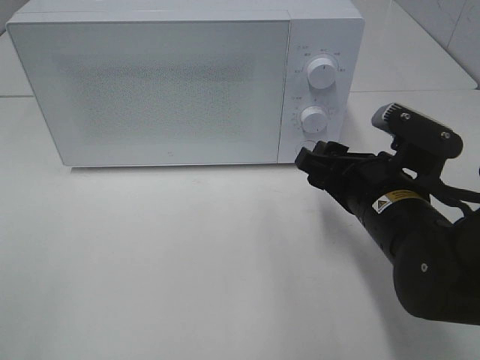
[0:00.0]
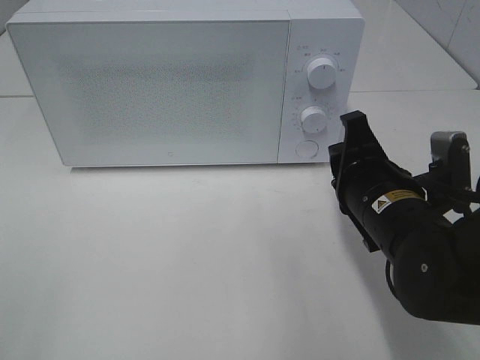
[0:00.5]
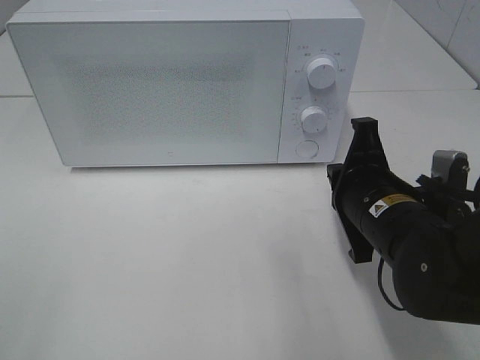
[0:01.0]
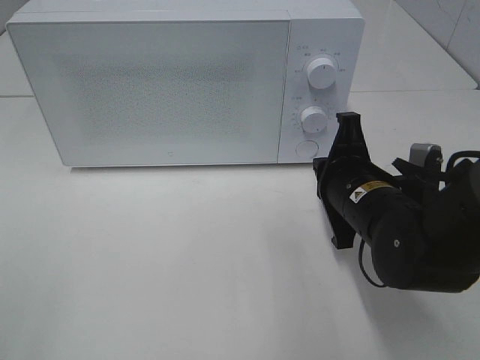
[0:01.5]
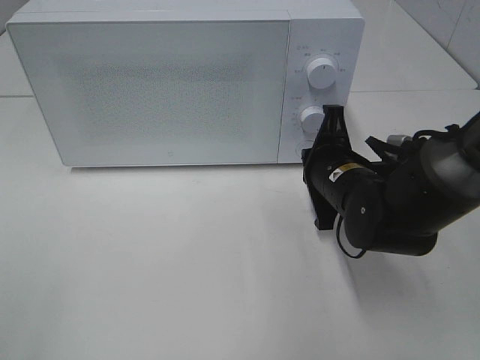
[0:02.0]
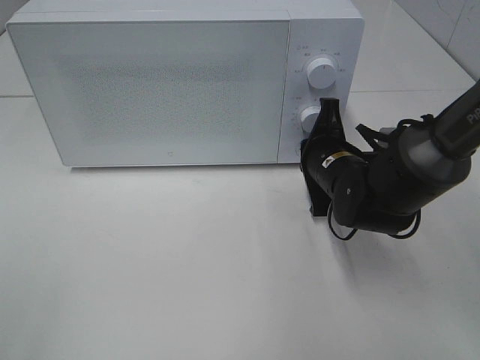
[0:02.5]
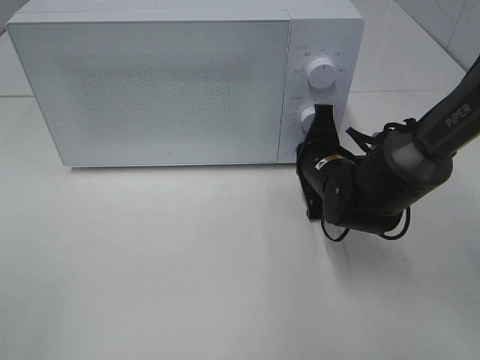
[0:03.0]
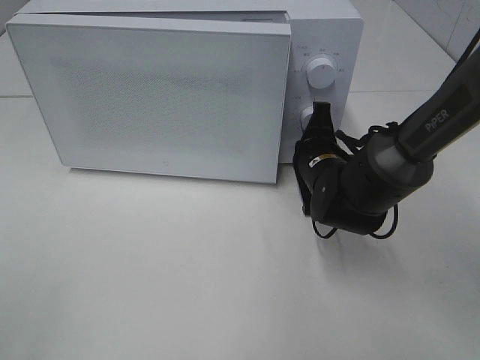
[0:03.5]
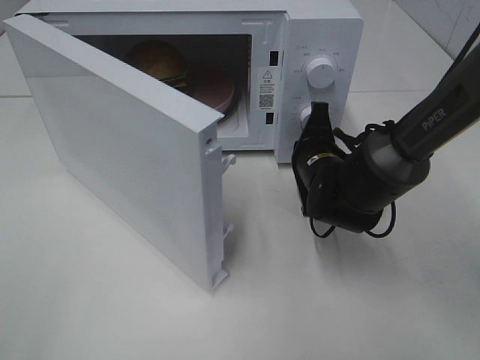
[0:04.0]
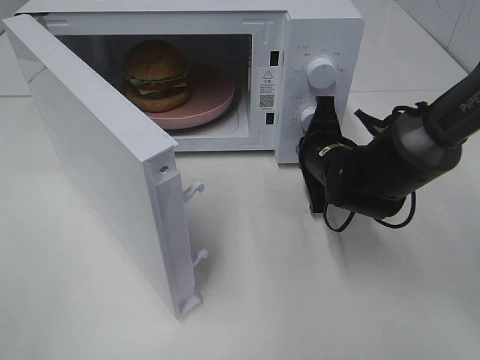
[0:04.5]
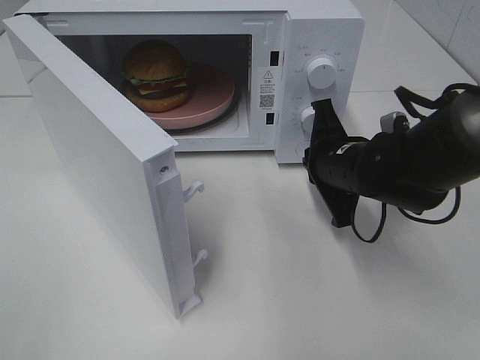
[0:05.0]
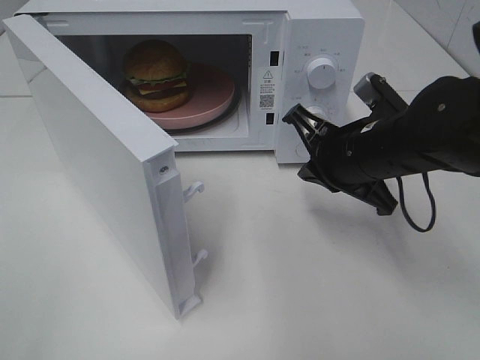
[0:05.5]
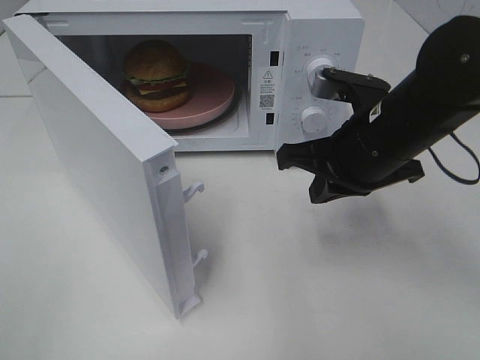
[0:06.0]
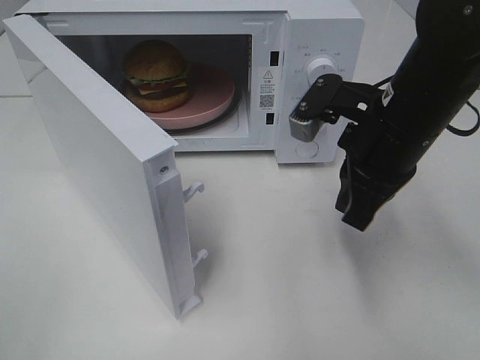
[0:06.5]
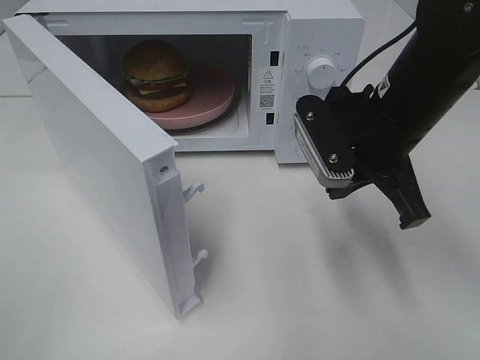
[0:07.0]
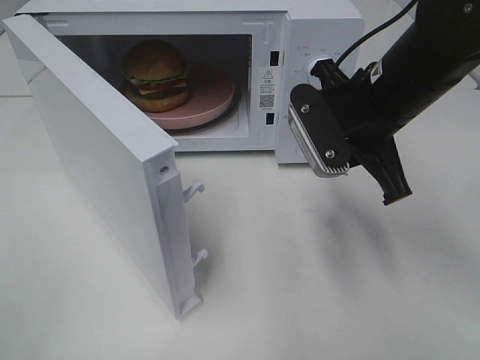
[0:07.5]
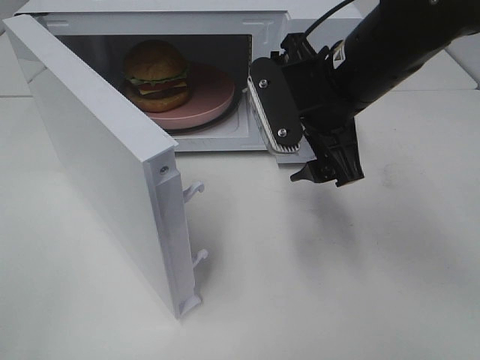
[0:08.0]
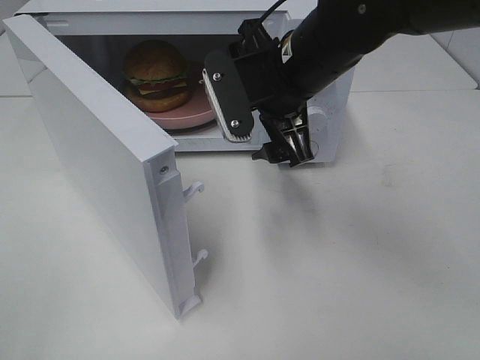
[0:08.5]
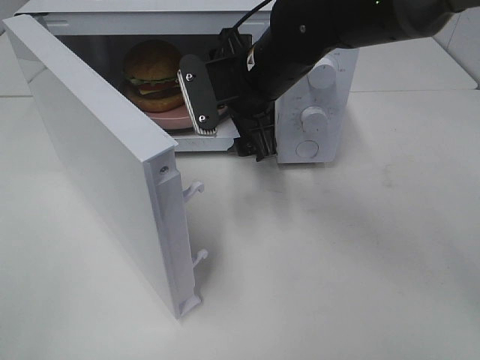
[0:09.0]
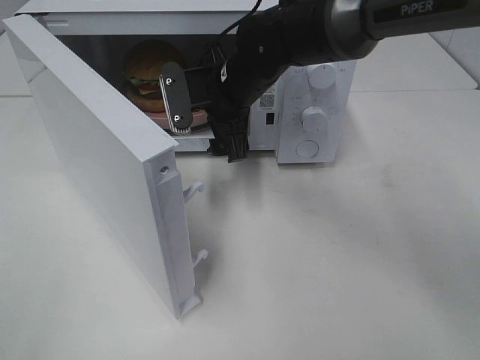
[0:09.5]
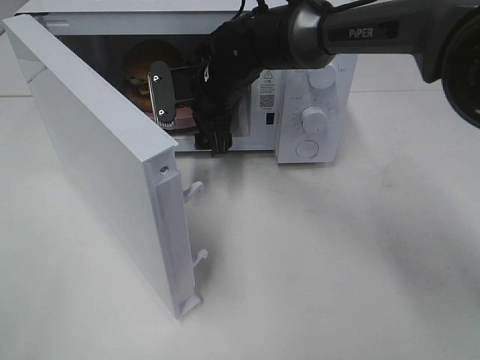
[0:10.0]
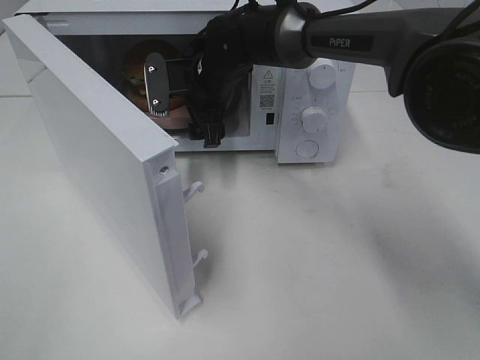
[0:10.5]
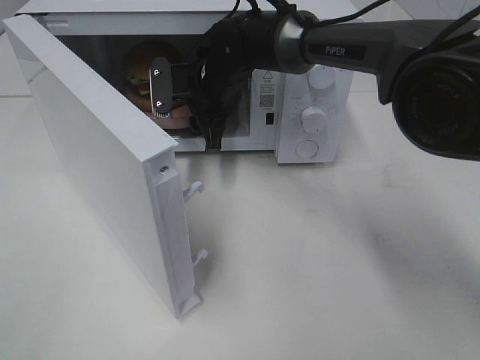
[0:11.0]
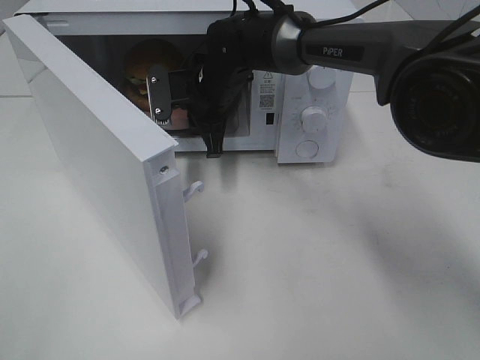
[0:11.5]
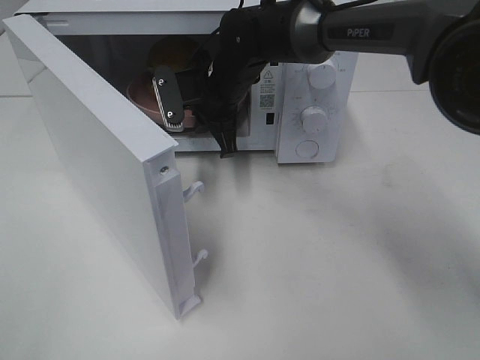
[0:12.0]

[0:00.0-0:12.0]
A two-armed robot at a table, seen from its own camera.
Task of the whole recording: Heat the burger.
Step, 0:00.0 to 0:04.5: Right hand: press the switch.
Step, 0:05.0 to 0:11.5: Right hand: grab the plate with the hamburger.
0:00.0 to 0:02.0: The right gripper moves forward, roughly 5 cm, and closes.
0:02.0 to 0:04.0: The right gripper moves forward, about 5 cm.
0:04.0 to 0:06.0: The right gripper heads upward and backward, covering approximately 15 cm.
0:06.0 to 0:08.0: The right gripper moves some 5 cm, and opens up.
0:08.0 to 0:10.0: The right gripper is displaced forward, to the left and downward by roughly 20 cm.
0:10.0 to 0:12.0: The right gripper closes.

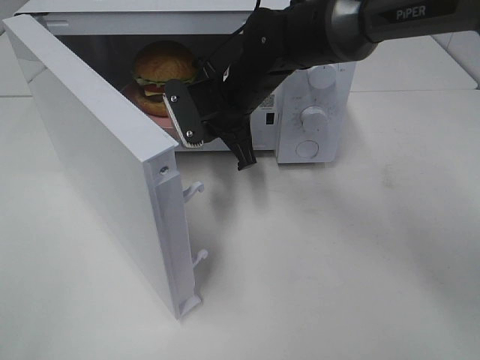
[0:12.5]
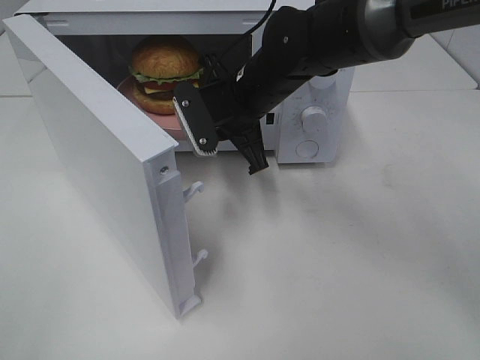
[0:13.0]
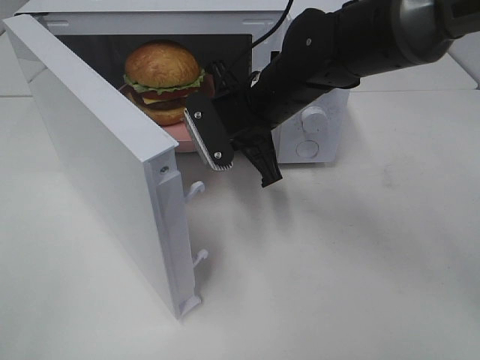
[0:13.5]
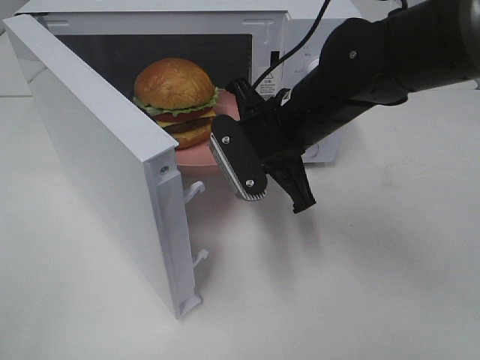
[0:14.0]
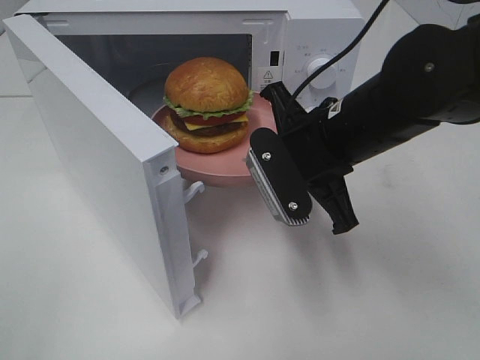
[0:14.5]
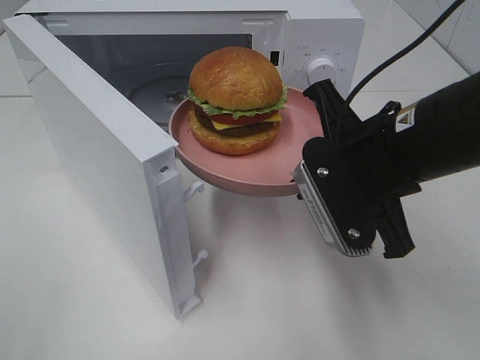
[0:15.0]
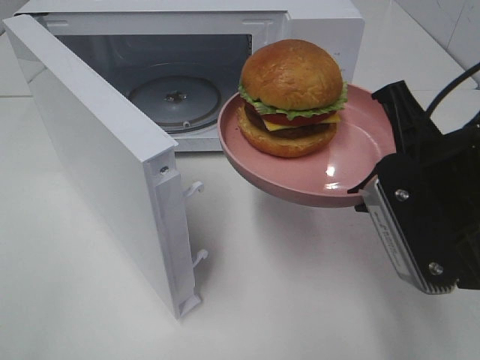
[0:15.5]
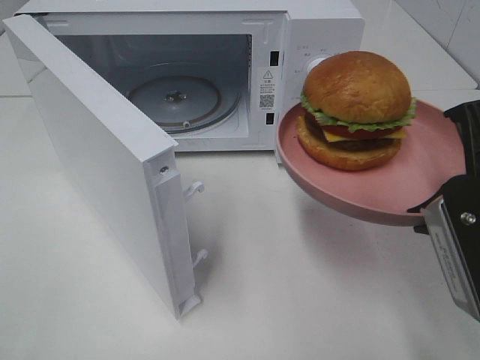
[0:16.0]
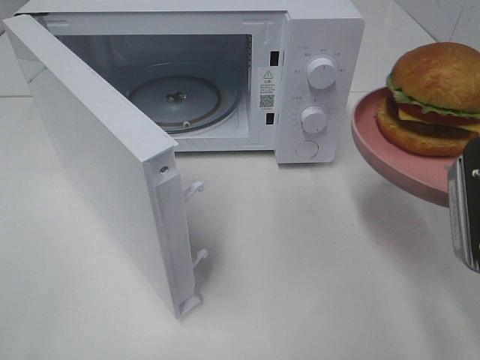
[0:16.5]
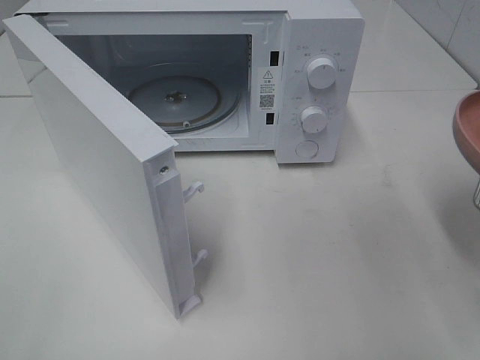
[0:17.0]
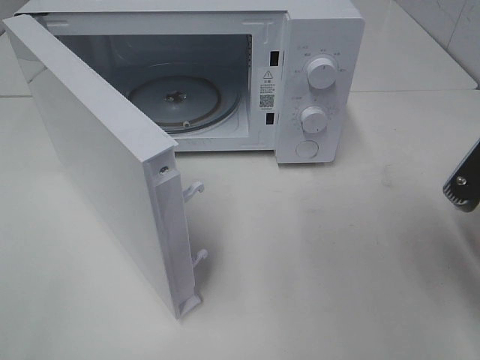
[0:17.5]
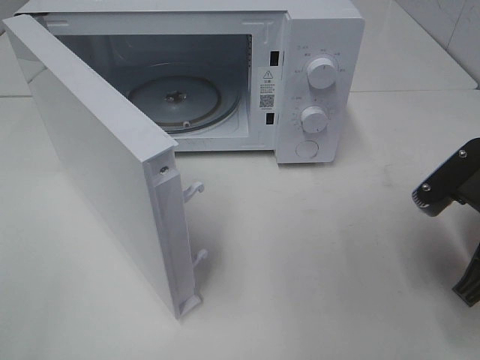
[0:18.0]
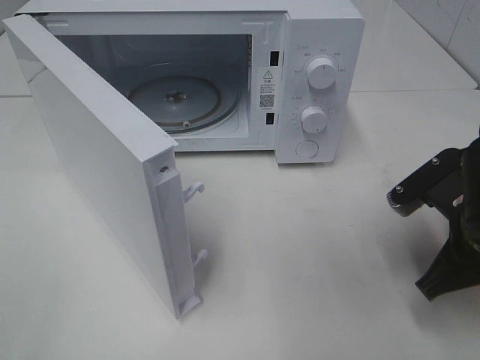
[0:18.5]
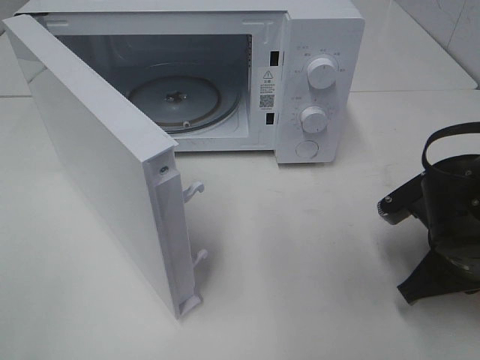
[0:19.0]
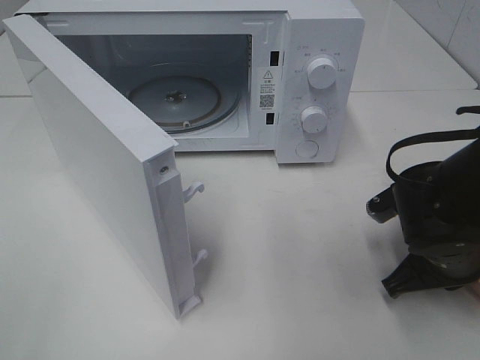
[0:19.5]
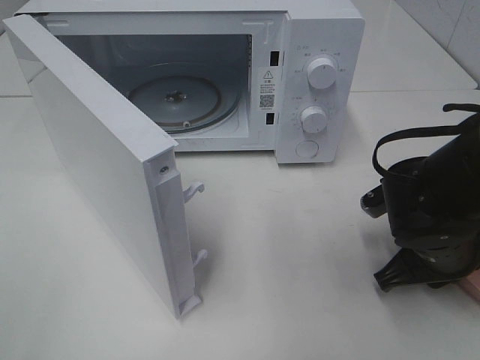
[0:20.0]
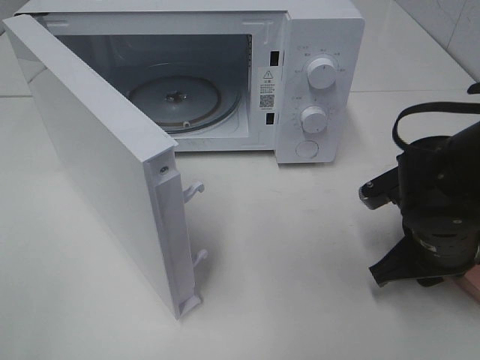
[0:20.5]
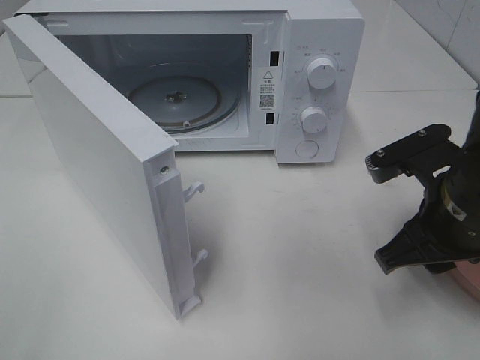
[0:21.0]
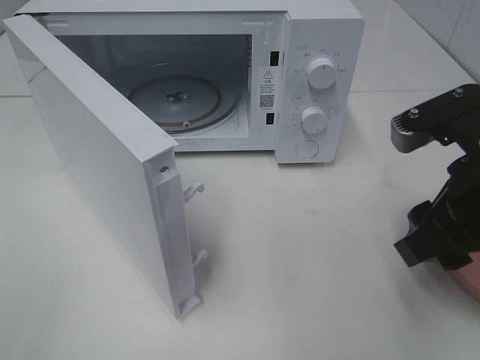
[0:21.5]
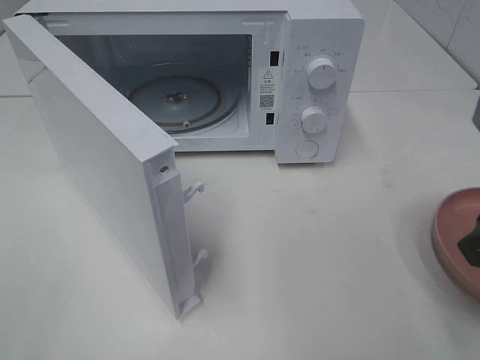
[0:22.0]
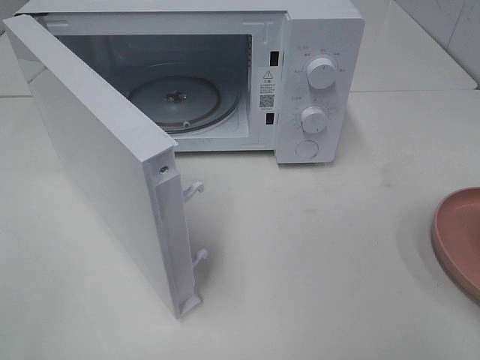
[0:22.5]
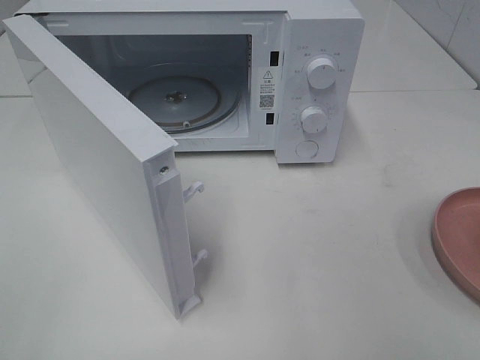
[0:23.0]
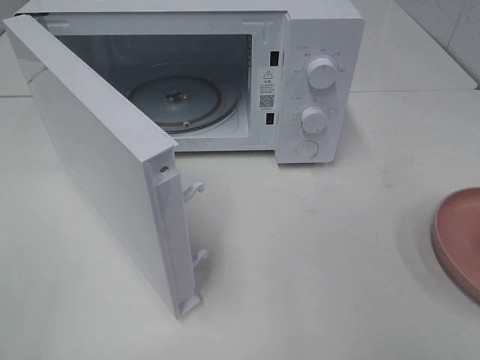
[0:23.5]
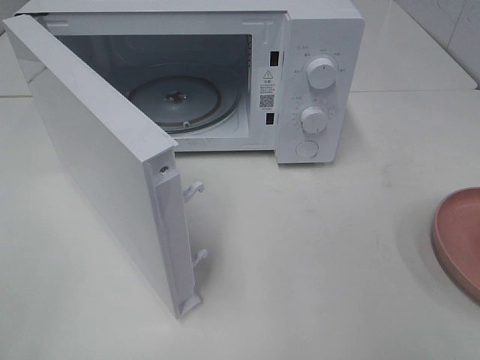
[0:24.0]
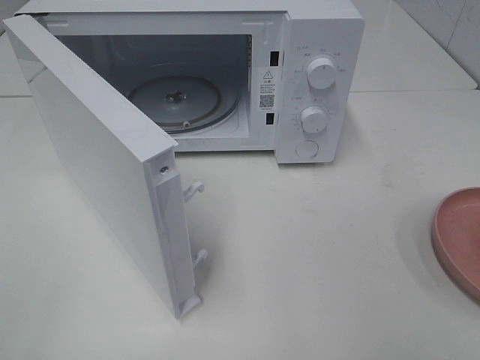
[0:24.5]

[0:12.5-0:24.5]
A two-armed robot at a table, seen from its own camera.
Task of the whole recording: Heat the burger.
Step, 0:12.5 to 0:20.5: Right hand: place the plate on the table.
0:12.5 to 0:14.5: The right gripper goes about 15 cm backward and to the right.
0:14.5 to 0:16.5: The right gripper is displaced to the right and backward by approximately 15 cm.
0:16.5 to 0:18.5: The right gripper goes about 10 cm downward and forward.
0:18.5 to 0:20.5: The right gripper opens.
0:20.5 to 0:22.5: The right gripper is displaced upward and backward by approximately 25 cm.

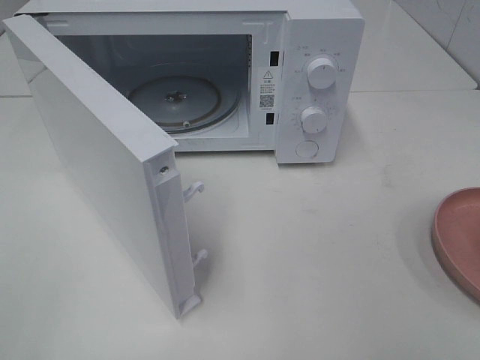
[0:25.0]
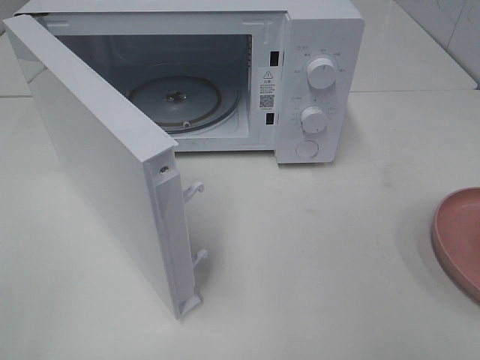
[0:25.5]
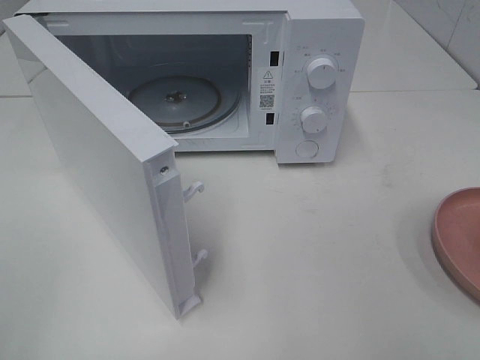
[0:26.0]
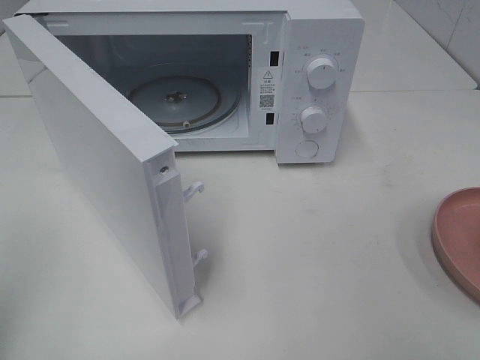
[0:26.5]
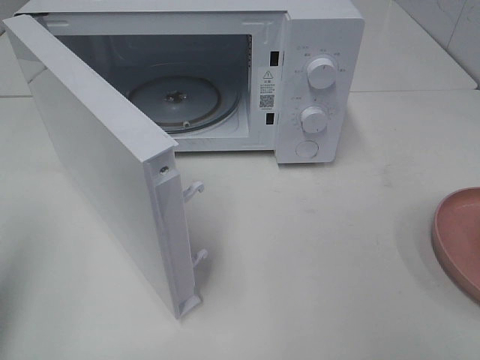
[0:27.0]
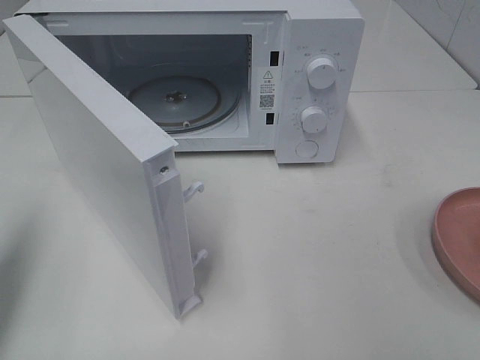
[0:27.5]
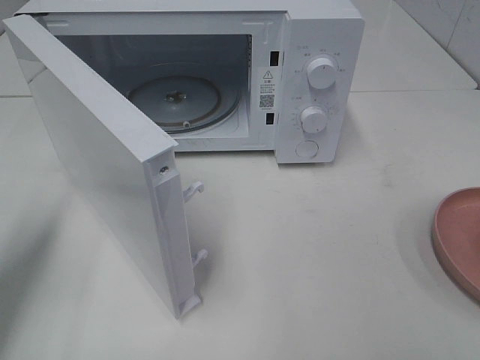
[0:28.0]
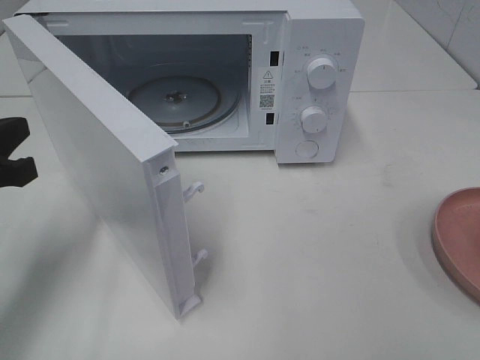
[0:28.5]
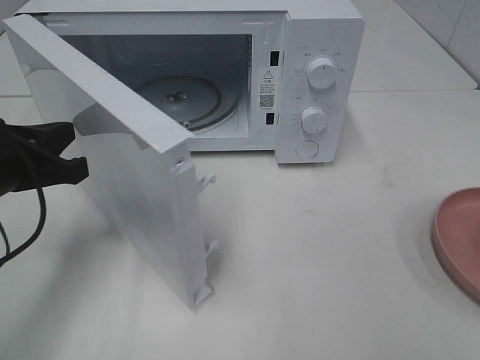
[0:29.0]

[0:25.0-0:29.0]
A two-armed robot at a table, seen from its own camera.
Task of the whole recording: Heat the burger.
0:25.0 to 0:27.0: The left gripper is displaced forward by approximately 10 cm, and closes up.
0:27.0 to 0:29.0: The left gripper moves forward, downward and to the right, roughly 20 cm.
